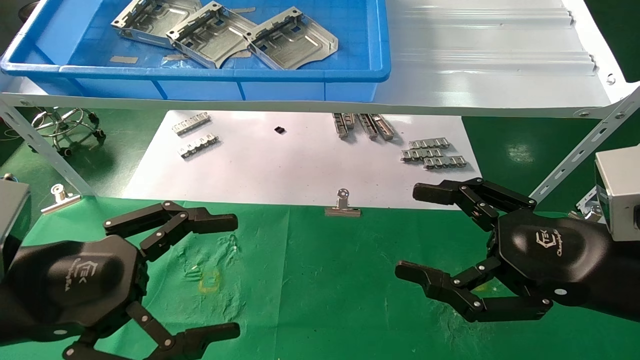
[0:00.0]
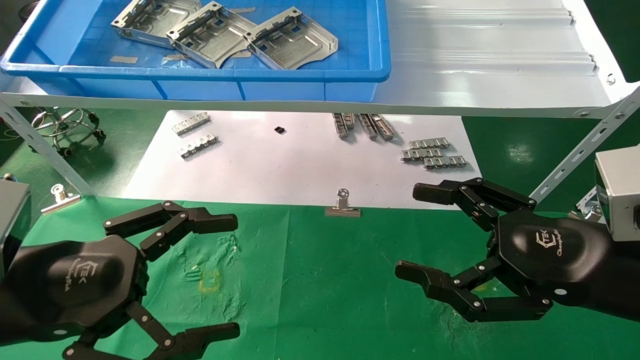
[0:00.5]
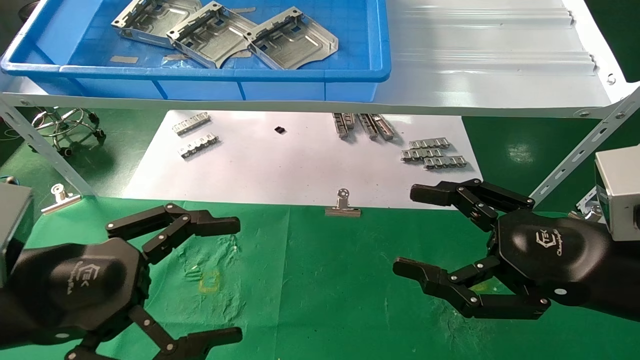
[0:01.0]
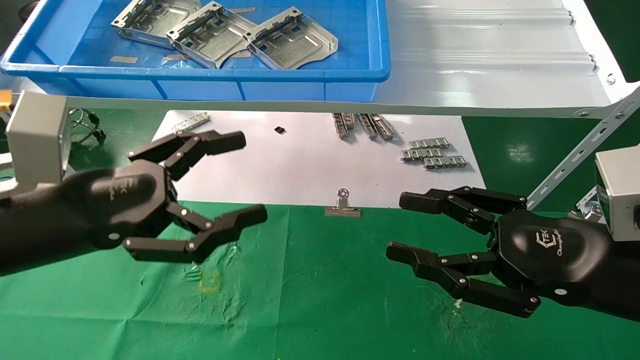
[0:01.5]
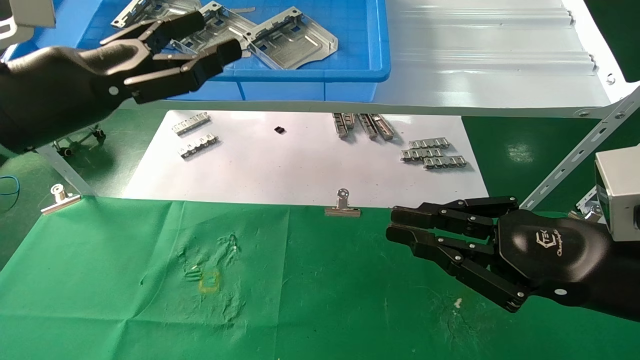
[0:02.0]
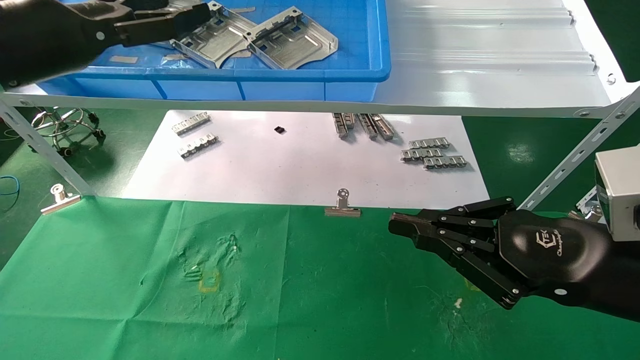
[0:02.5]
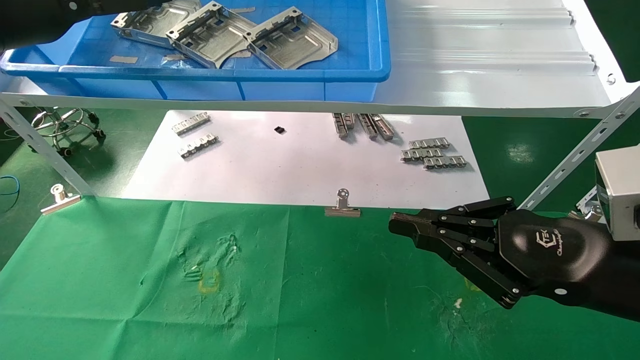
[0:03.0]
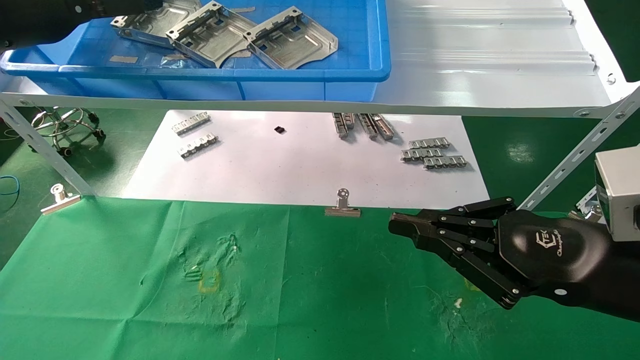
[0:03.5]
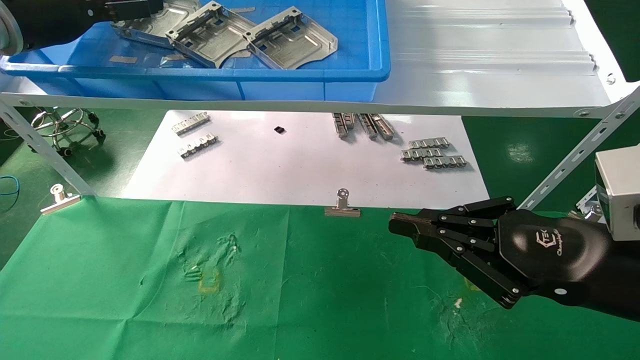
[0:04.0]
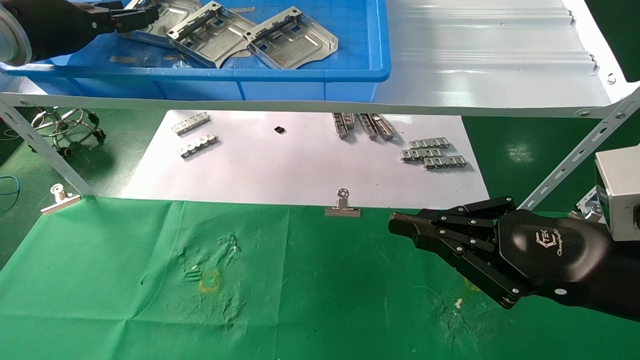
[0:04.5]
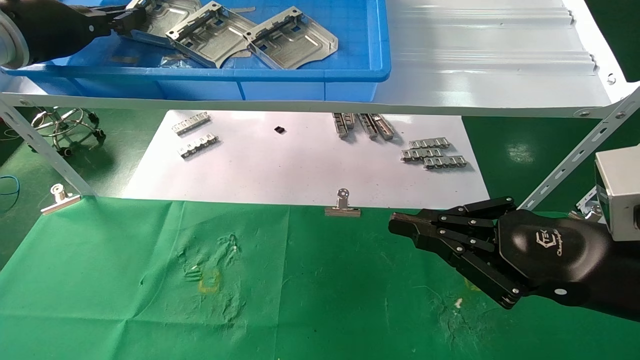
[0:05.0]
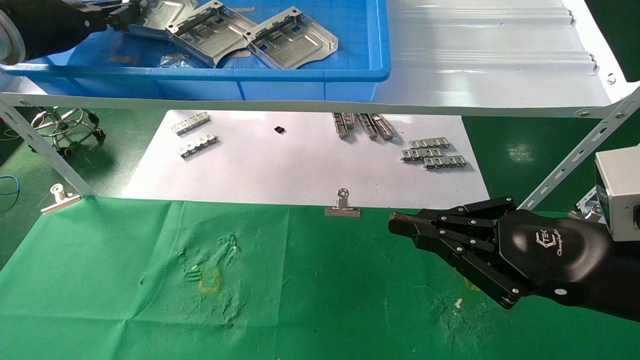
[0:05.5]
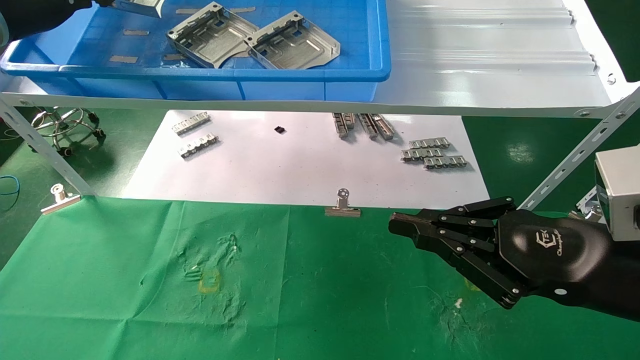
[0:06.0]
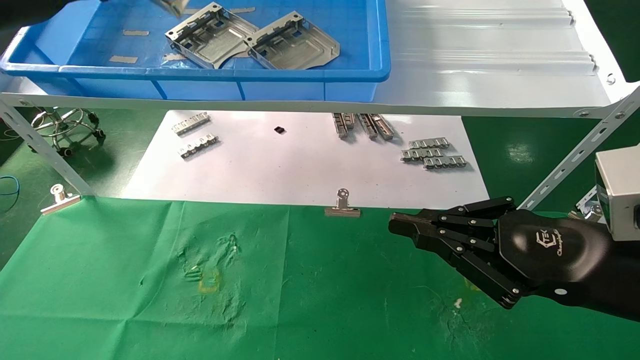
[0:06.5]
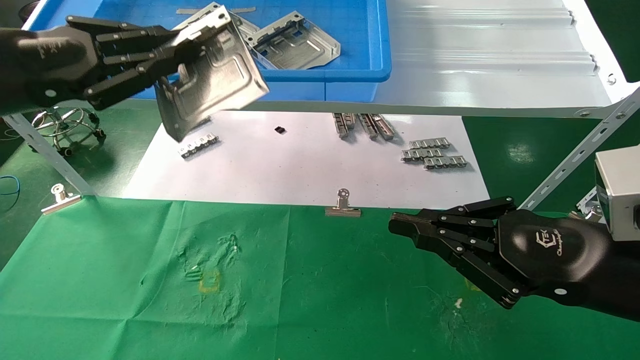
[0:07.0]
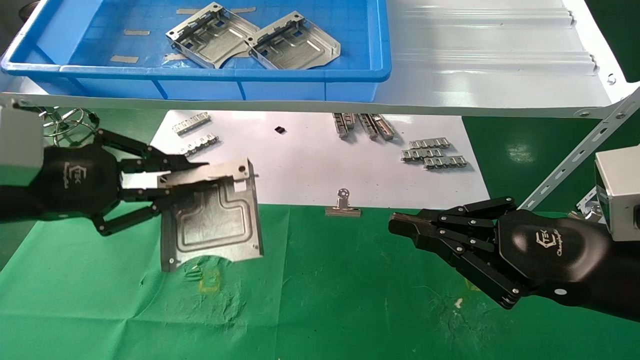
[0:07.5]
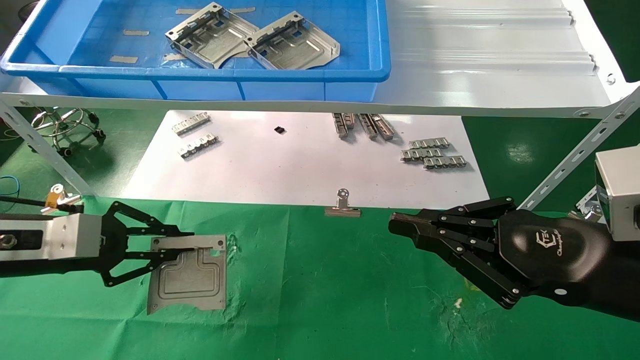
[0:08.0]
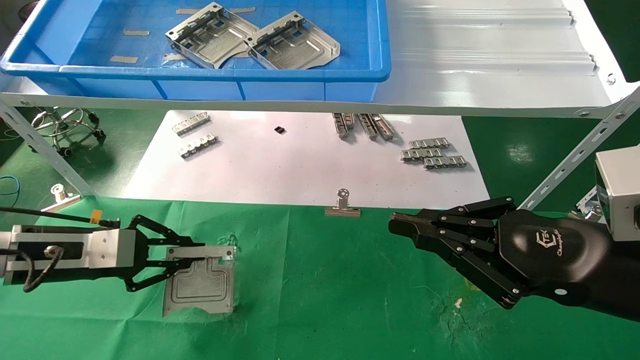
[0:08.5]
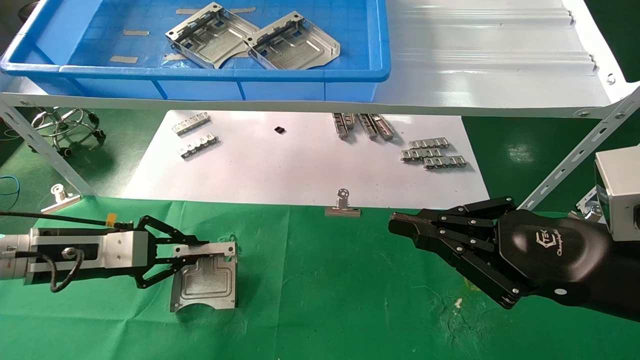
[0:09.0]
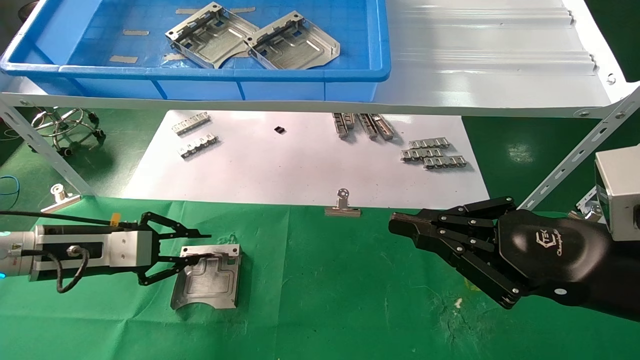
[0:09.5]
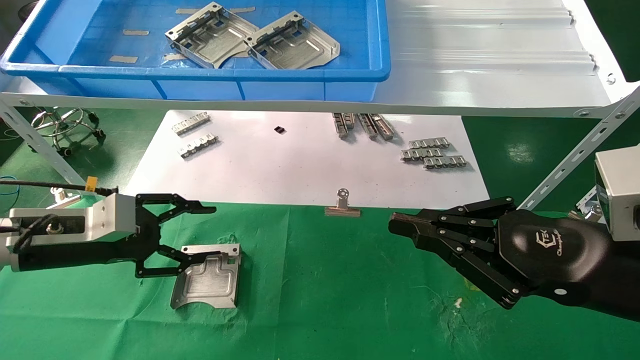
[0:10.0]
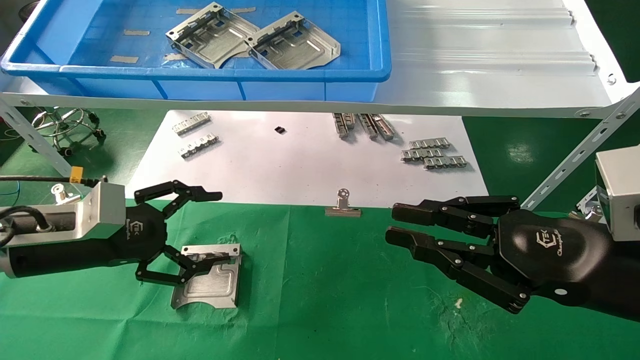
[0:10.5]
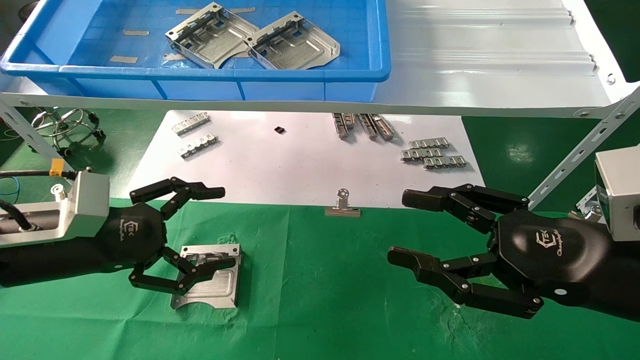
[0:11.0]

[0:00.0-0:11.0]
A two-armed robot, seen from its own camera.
Task of the whole recording: use the mechanical arm to pick up the parts and place them on the table.
Step, 0:01.5 to 0:04.5: Pick up the hard drive bracket from the feeding area.
Step, 0:05.0 to 0:09.5: Place the hard drive bracket into the box.
0:00.0 to 0:02.0: The right gripper closes its fingers, while the left gripper travels upward and forward by some 15 cm.
0:02.0 to 0:03.5: The left gripper goes about 15 cm upward, forward and to the left.
0:03.5 to 0:05.5: The left gripper closes.
0:05.5 to 0:07.5: The left gripper goes about 20 cm downward and backward.
0:07.5 to 0:09.0: The left gripper moves downward and forward, some 15 cm.
0:09.0 to 0:11.0: The left gripper travels backward by about 5 cm, and opens its fingers. Meanwhile the right gripper opens.
